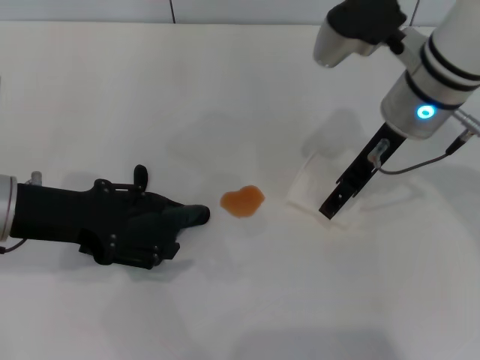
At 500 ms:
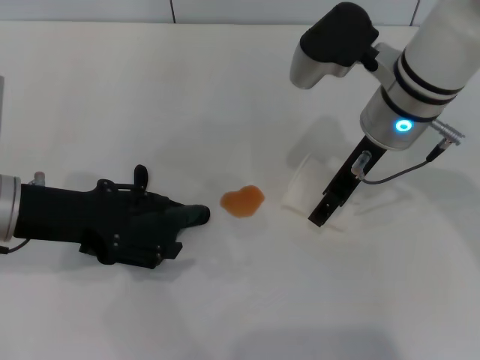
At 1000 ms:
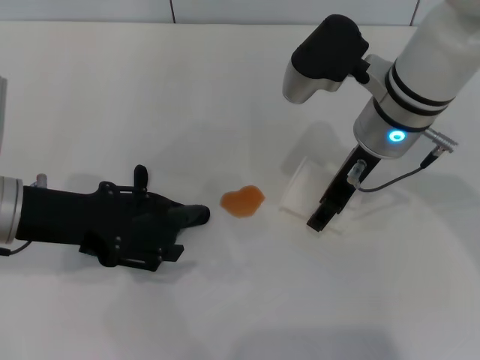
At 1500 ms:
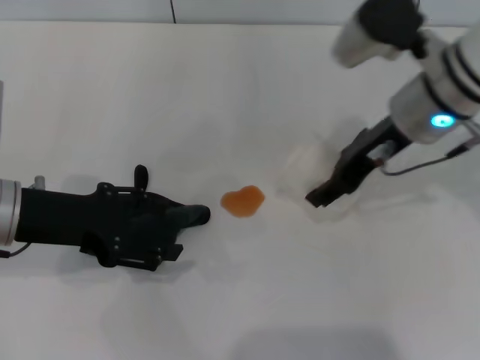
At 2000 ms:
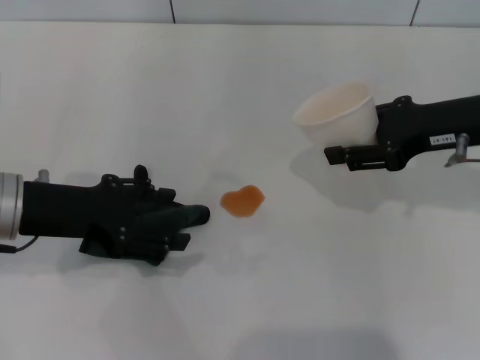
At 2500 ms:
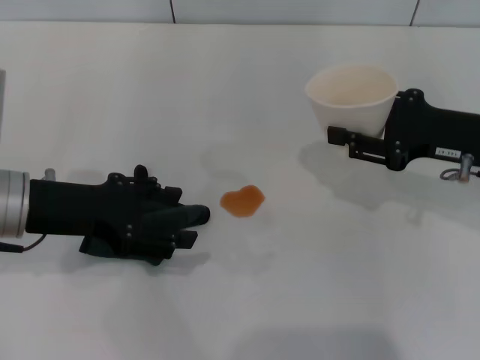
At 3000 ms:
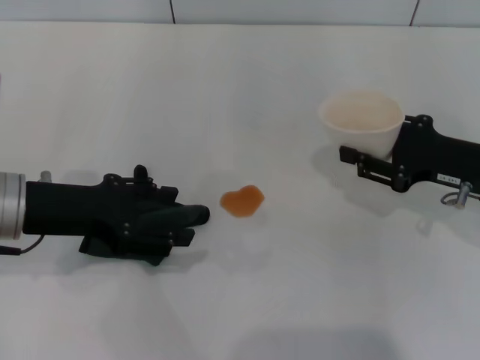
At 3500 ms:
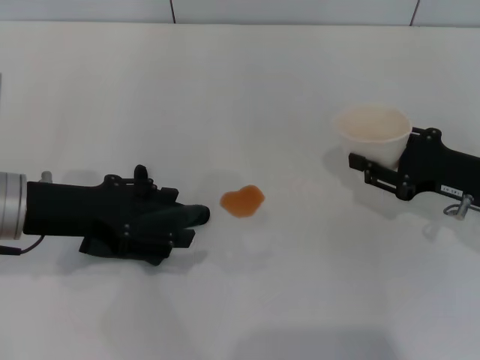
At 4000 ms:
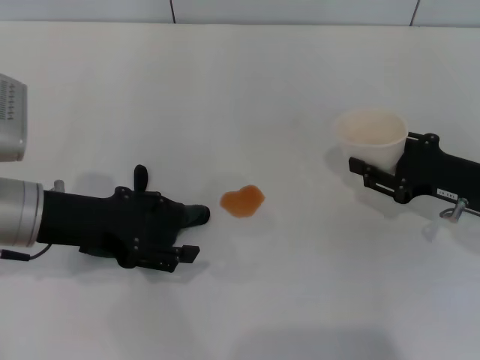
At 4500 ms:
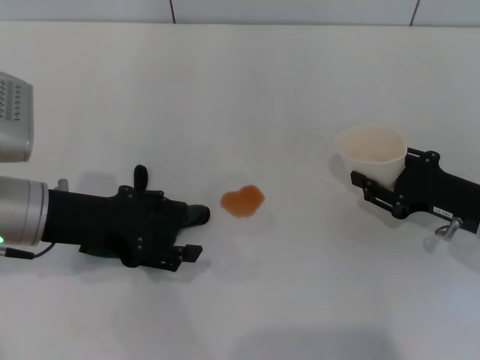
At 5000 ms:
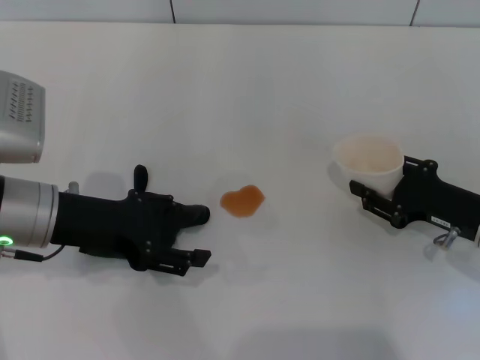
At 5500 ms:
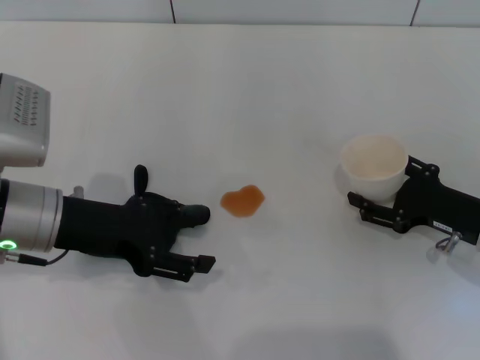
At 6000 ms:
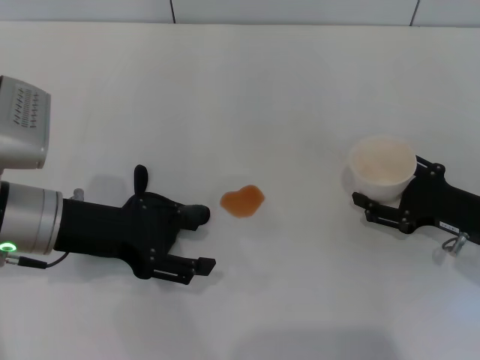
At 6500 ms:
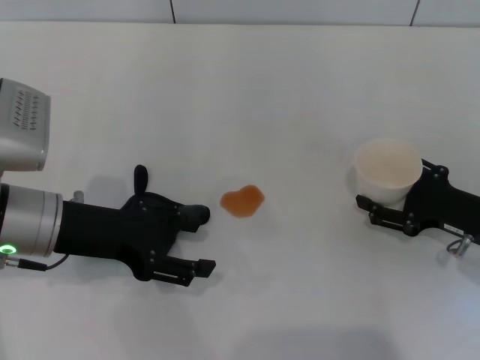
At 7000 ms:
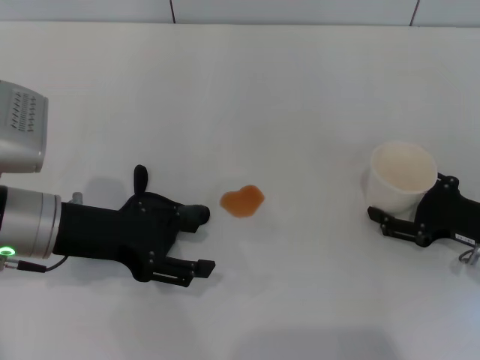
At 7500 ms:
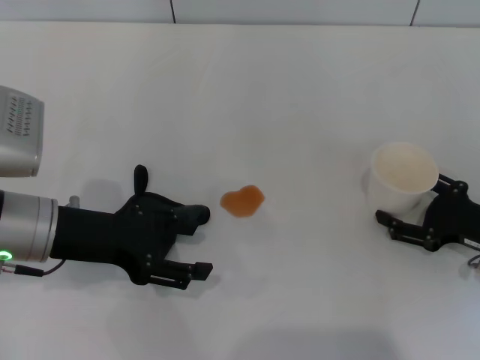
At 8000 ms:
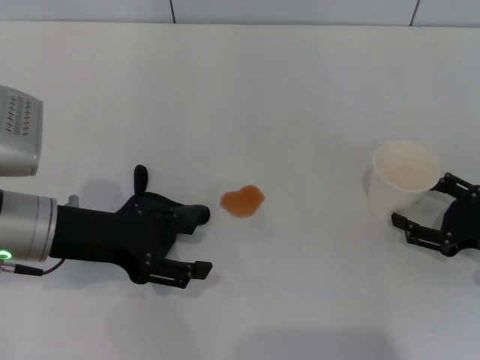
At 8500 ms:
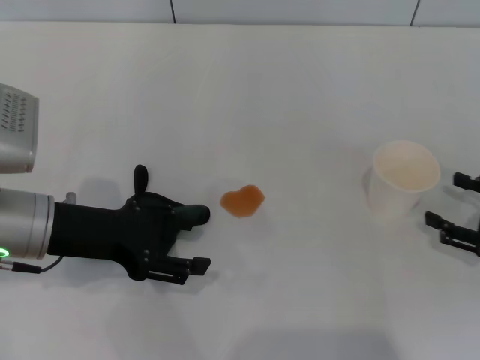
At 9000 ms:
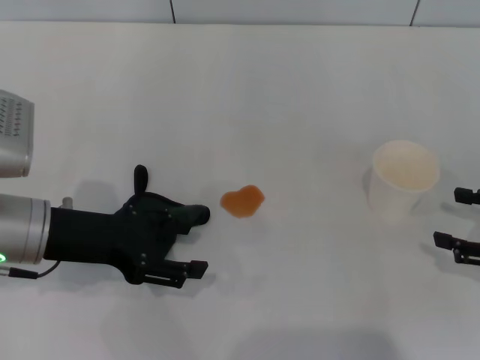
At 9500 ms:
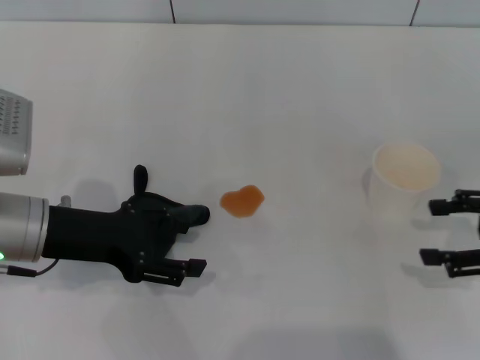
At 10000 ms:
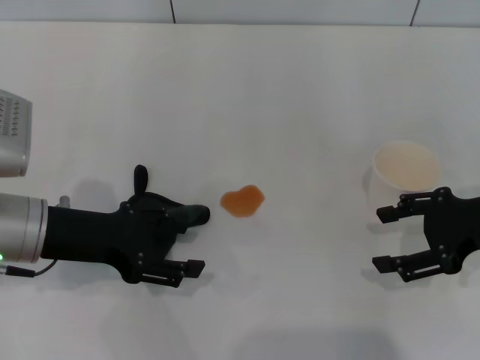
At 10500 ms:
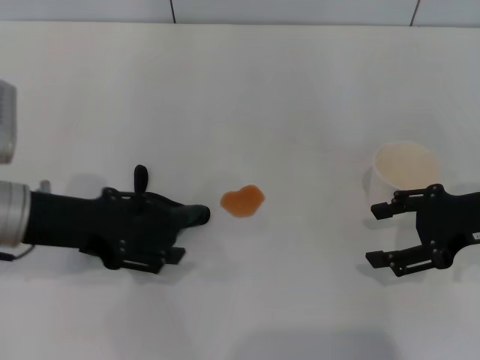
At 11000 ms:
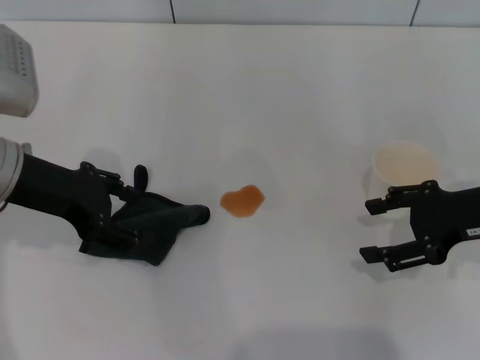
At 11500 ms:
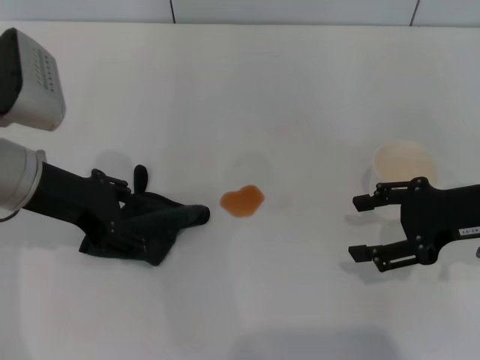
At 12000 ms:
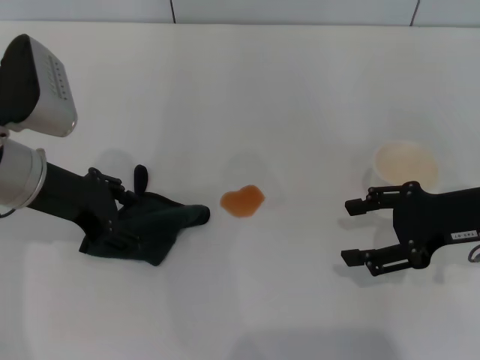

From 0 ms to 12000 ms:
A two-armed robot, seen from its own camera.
Step, from 1500 ms to 8000 ms: Stand the paper cup upright with the right gripper.
From 0 ms to 2000 ms: The right gripper moves to the right, roughly 10 cm, and closes its fingers.
From 2000 ms to 4000 ms: The right gripper shifts roughly 10 cm downward.
From 4000 ms to 6000 ms: The right gripper opens.
From 6000 ms to 8000 ms: There are only small adjustments of the grippers.
From 8000 ms to 10000 ms: The right gripper is displaced upward by about 10 cm.
From 10000 ms to 12000 ms: The left gripper changes place by approximately 5 cm.

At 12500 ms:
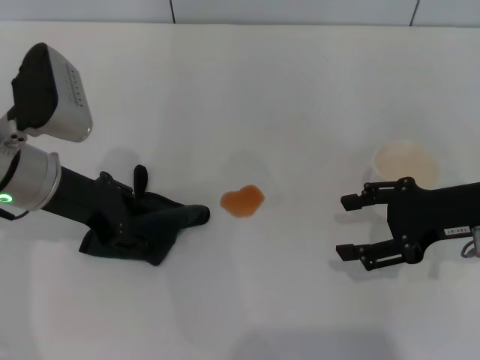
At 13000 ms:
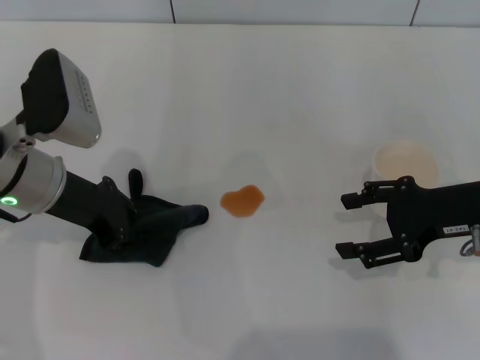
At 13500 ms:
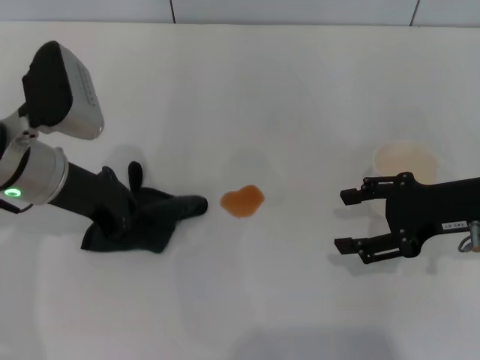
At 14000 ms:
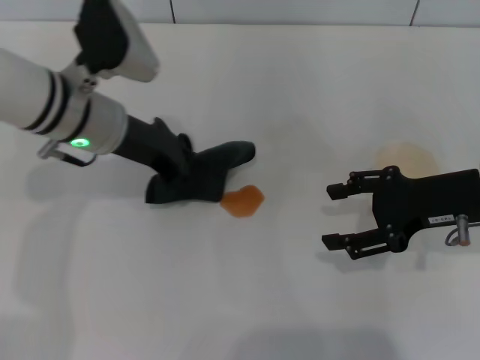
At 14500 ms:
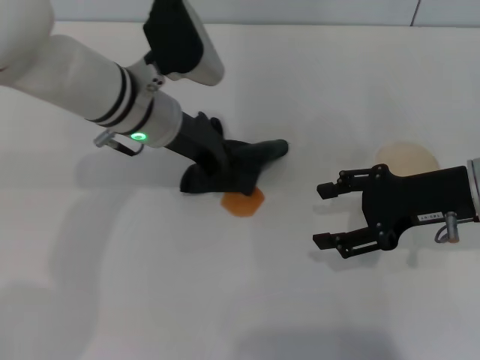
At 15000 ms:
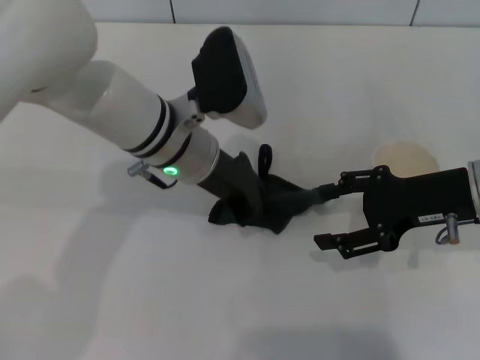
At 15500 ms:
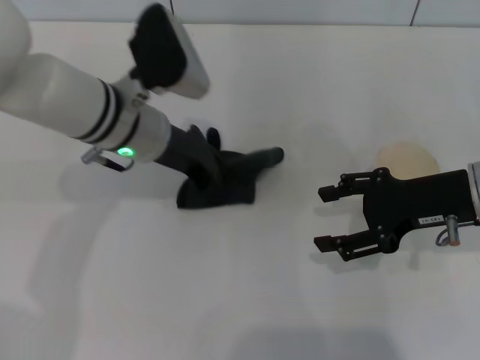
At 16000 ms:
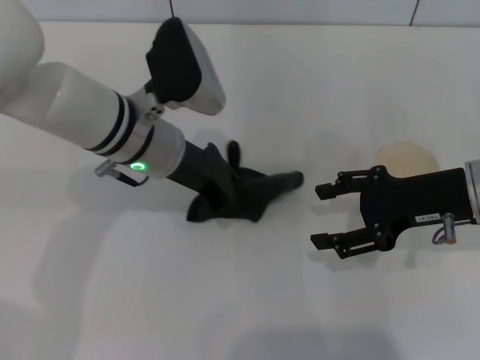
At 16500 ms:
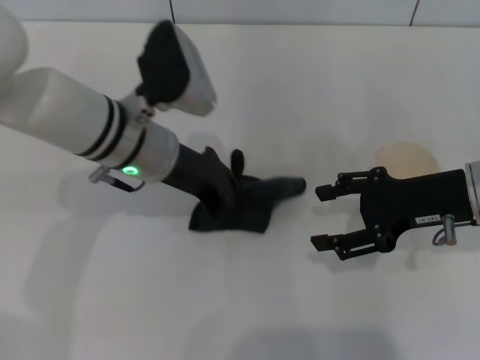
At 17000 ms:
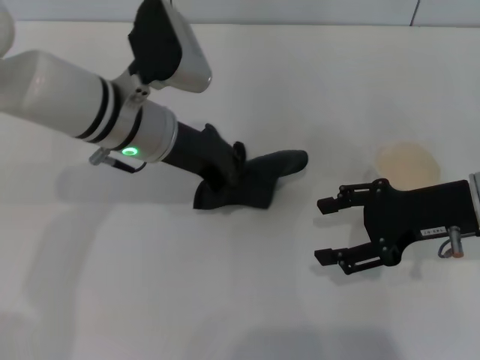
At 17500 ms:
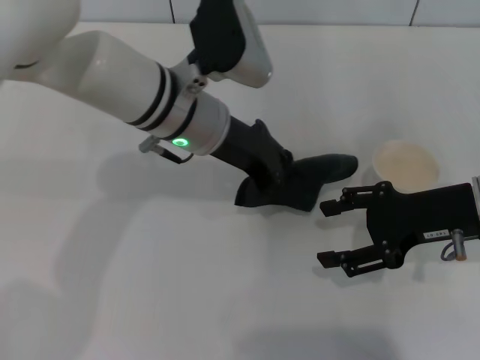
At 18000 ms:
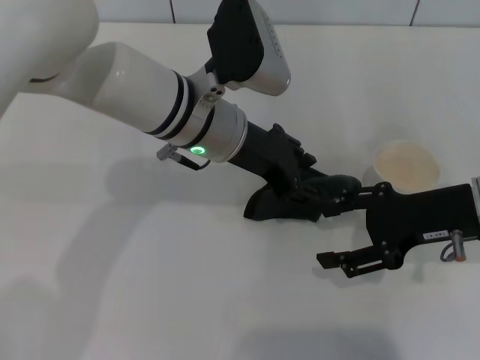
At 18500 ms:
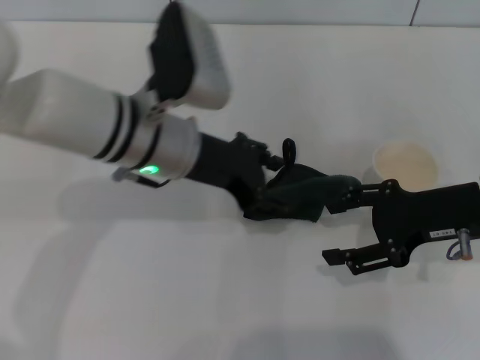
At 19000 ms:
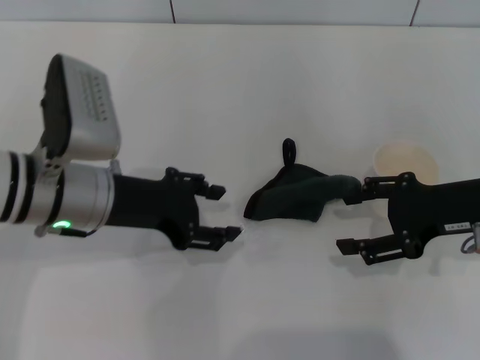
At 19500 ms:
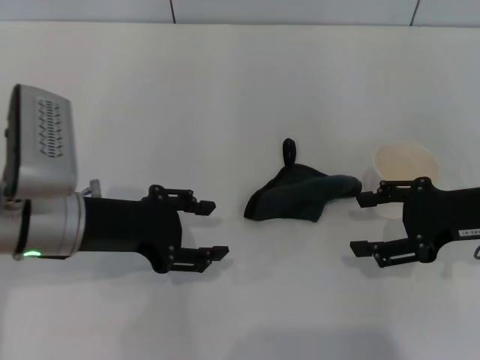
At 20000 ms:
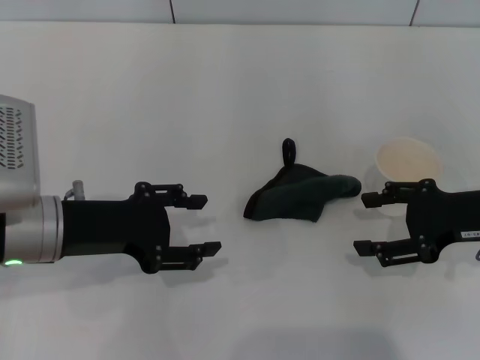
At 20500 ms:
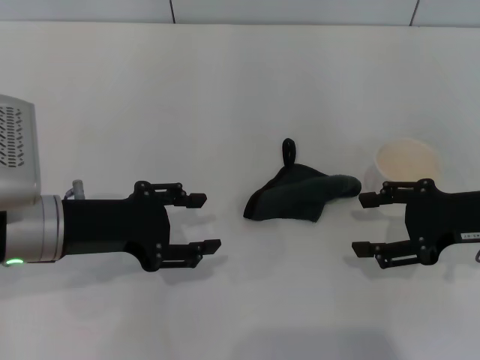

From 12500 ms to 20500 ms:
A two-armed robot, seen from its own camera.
Step, from 14000 ms to 17000 ms: Wipe the stains off the table with the left gripper.
Step, from 17500 ms to 18000 ms: Place the rag on the table with the left gripper.
From 12500 ms to 14500 ms: The left gripper moves to the right and forward, some 15 cm, and closes up.
From 14500 ms to 16500 ms: The grippers move only a little.
From 16500 ms to 18500 ms: The left gripper opens its fingers.
From 18500 ms to 20500 ms: The left gripper is displaced to the left and backward by some 15 cm.
